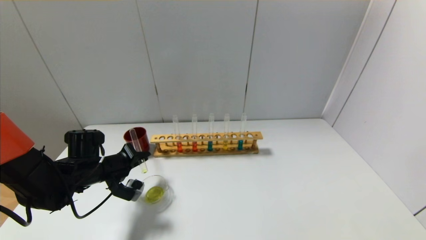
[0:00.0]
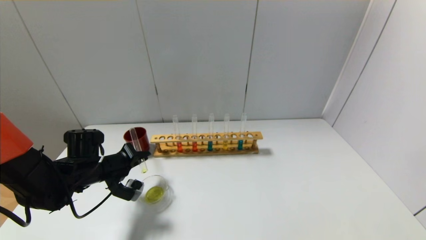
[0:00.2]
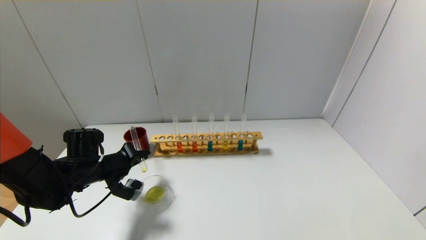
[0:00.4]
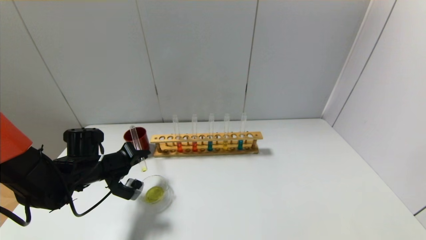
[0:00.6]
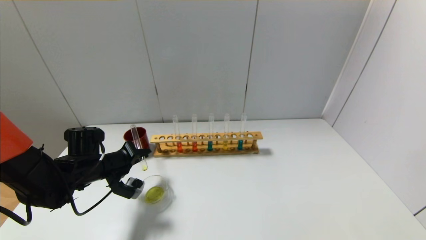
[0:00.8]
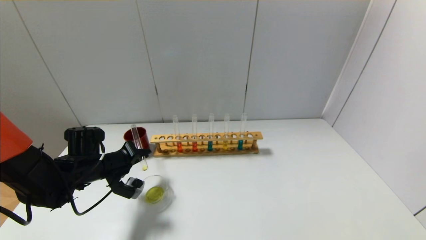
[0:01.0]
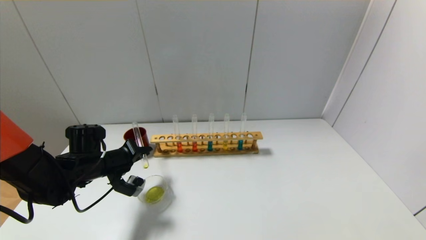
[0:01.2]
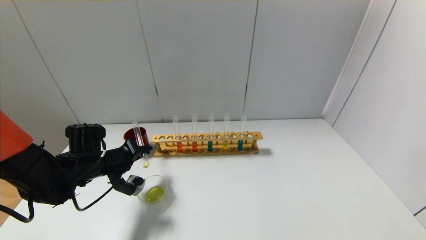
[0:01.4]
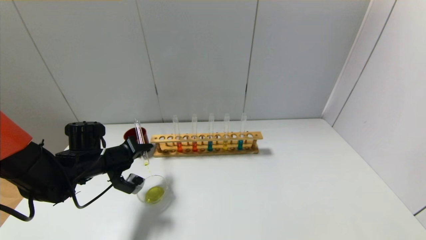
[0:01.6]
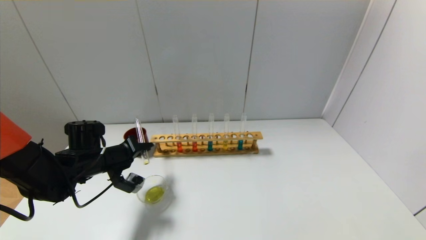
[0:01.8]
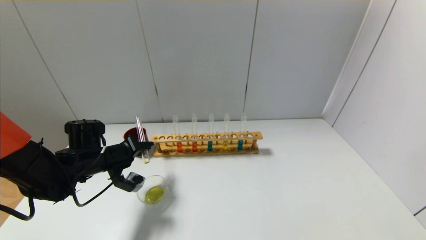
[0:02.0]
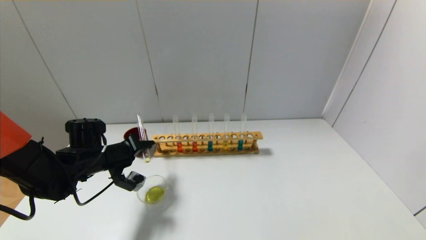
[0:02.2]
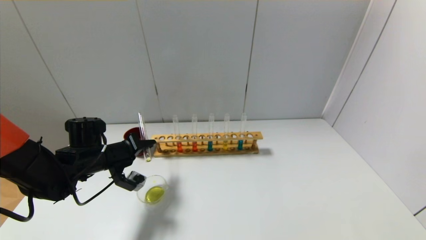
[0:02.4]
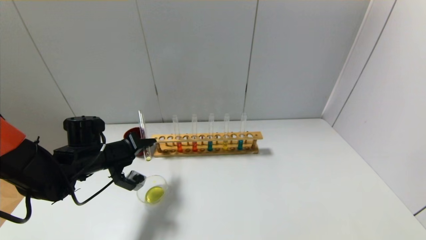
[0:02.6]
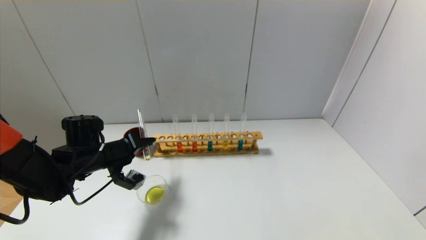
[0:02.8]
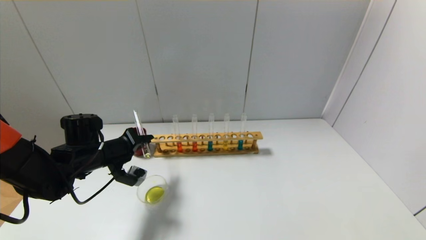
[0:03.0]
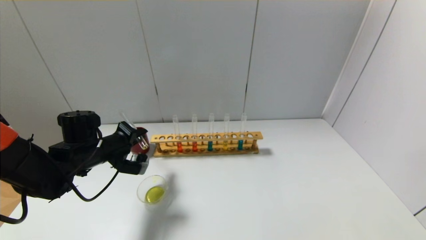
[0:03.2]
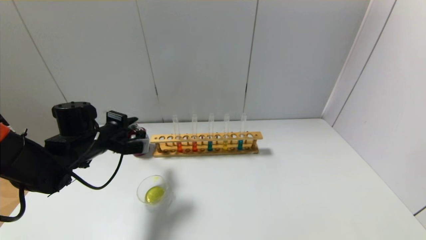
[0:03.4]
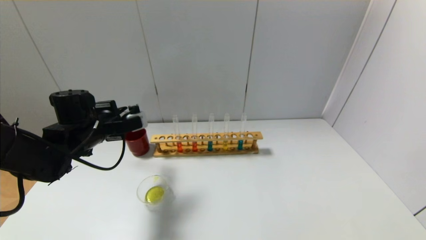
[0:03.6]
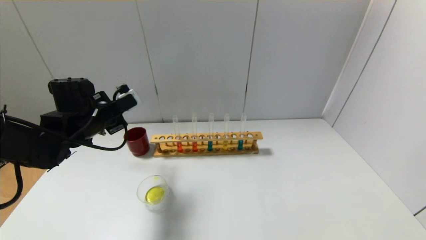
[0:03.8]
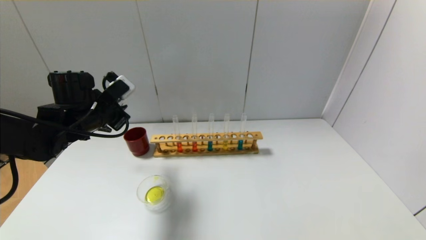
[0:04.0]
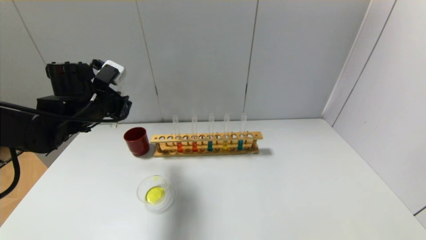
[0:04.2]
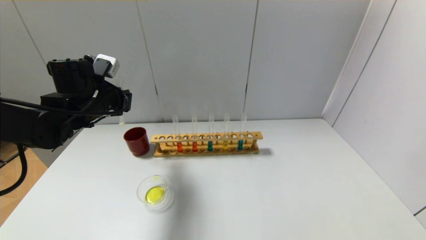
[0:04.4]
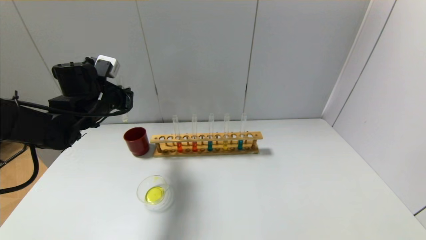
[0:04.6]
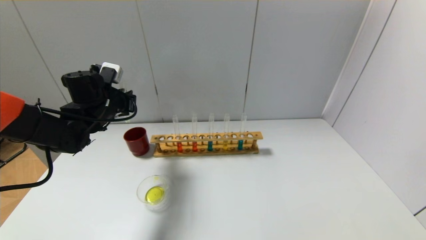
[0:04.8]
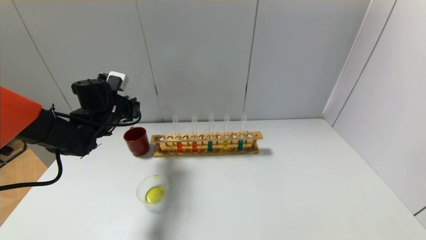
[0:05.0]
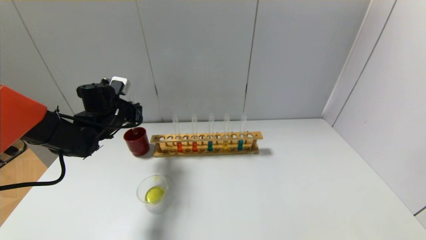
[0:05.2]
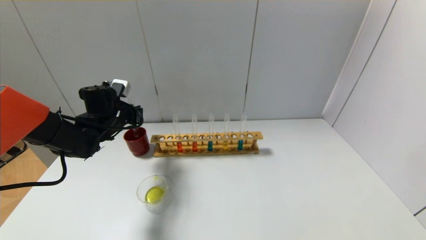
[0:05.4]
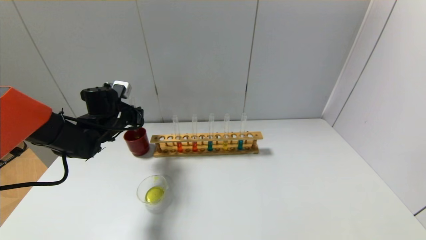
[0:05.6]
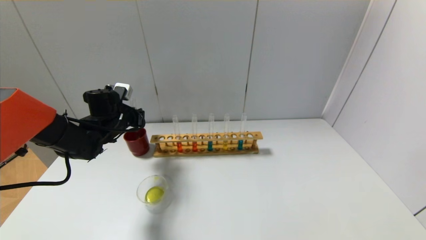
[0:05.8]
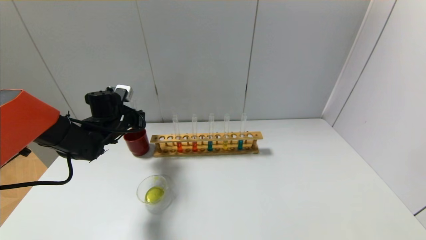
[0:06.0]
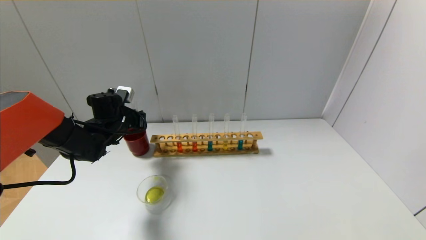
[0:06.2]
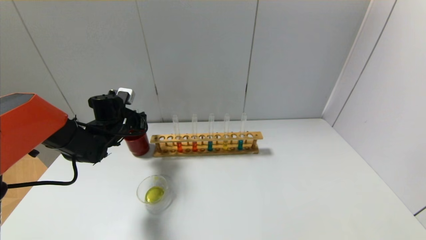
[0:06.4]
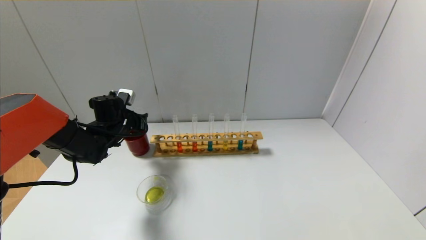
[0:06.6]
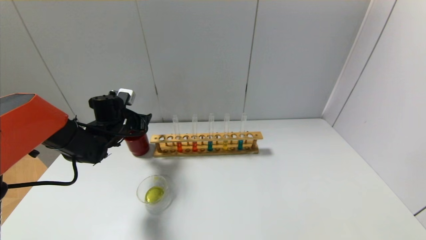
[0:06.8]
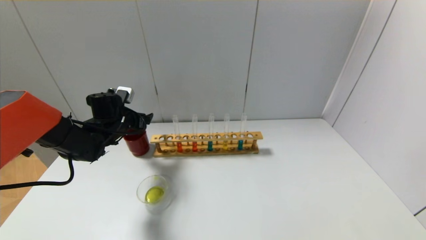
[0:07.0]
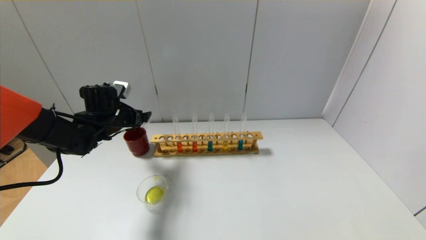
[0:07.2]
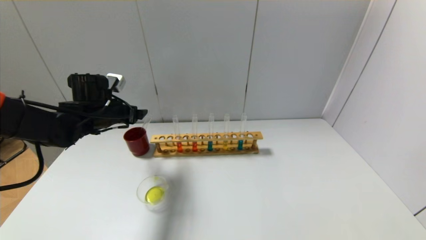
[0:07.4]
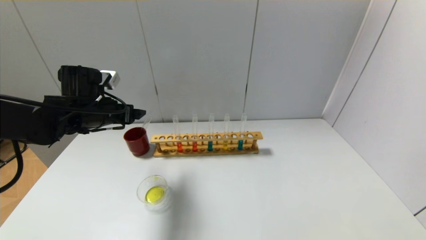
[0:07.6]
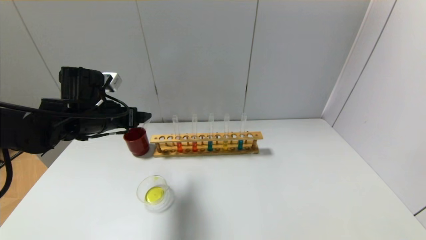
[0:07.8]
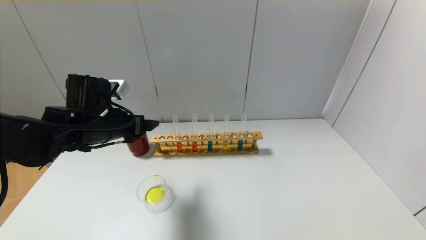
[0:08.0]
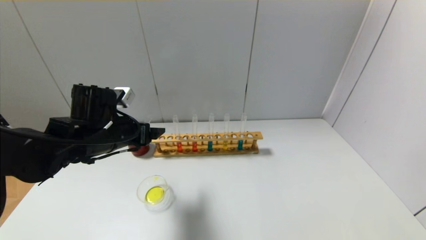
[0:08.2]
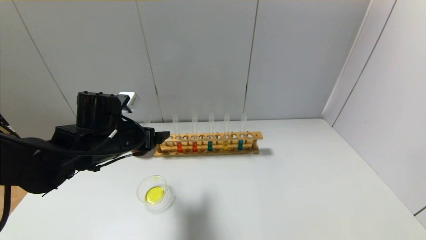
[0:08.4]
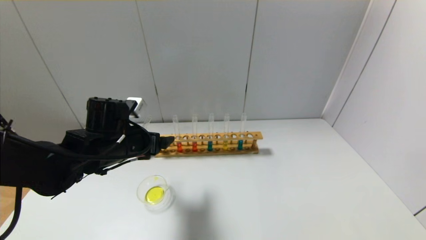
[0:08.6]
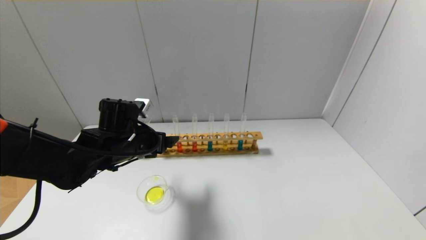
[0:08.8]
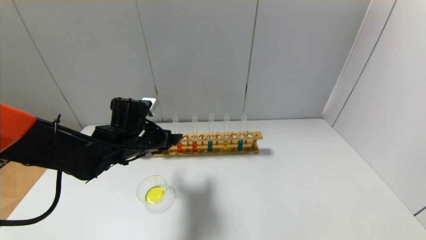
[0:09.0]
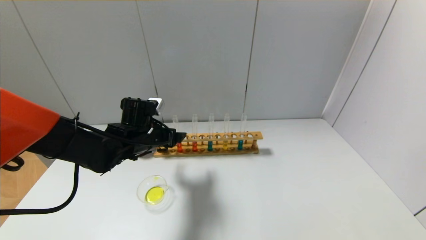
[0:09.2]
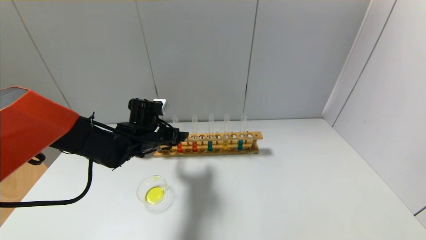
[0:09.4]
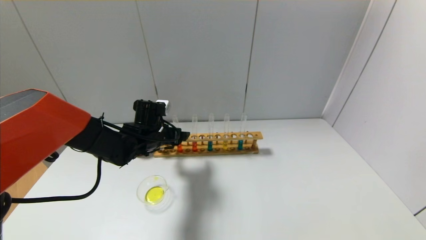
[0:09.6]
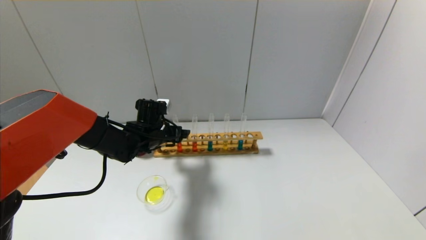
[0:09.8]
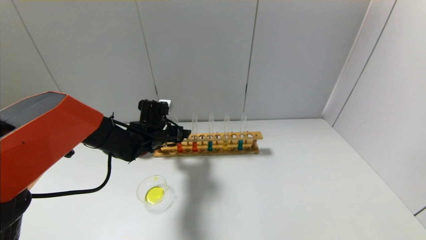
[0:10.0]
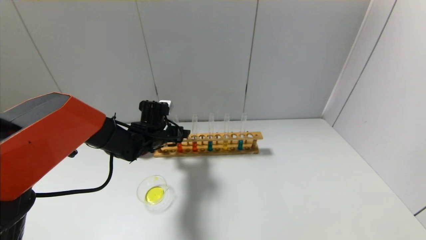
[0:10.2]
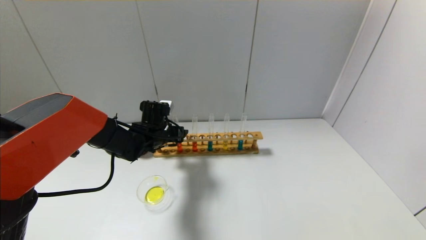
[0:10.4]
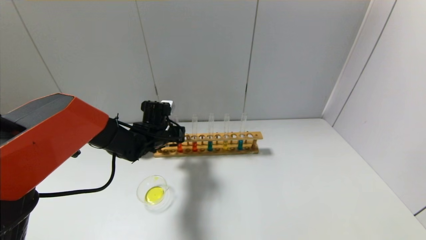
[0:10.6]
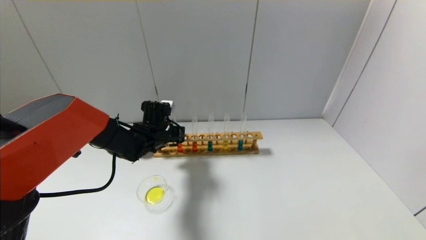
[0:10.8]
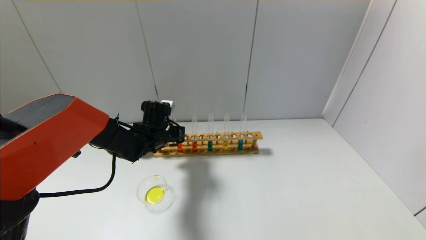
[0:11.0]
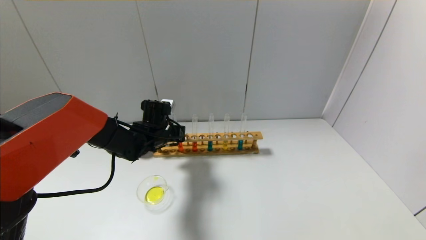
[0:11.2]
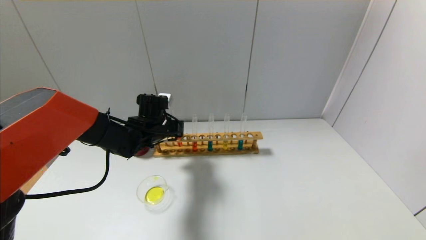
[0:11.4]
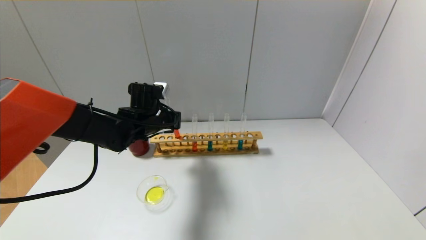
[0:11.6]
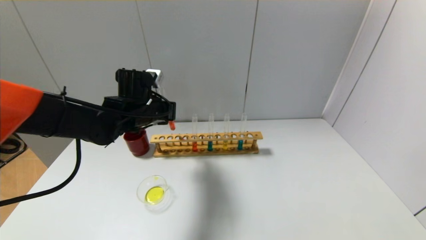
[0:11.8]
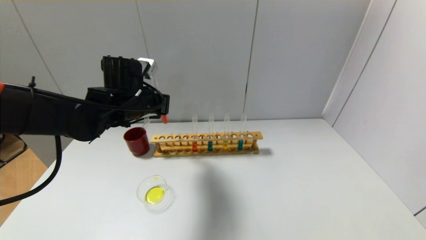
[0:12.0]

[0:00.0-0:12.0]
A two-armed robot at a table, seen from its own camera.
Step, 0:00.0 to 0:03.2: Pour the yellow reagent into the graduated cylinder with the left gripper.
Step, 0:03.4 to 0:06.6: Place the test tube into the brown cup with the left gripper.
Step, 0:06.8 to 0:10.8: Grasp the red reagent with the left gripper.
0:00.0 to 0:03.0: There are only small adjustments of the grippers.
0:03.0 to 0:04.4: The left gripper goes about 10 cm upward.
0:04.4 to 0:06.0: The left gripper travels downward and forward by approximately 10 cm.
0:06.0 to 0:07.6: The left gripper shifts some 10 cm upward and backward, and opens.
0:07.6 to 0:09.0: The left gripper travels to the right and downward by some 10 cm.
0:09.0 to 0:10.4: The left gripper goes approximately 10 cm forward.
0:10.4 to 0:12.0: The left gripper shifts about 15 cm upward and backward, and closes up.

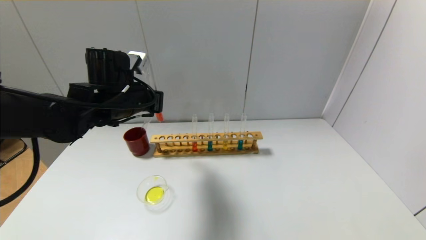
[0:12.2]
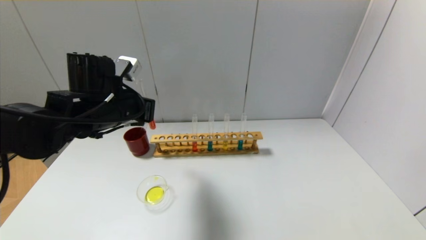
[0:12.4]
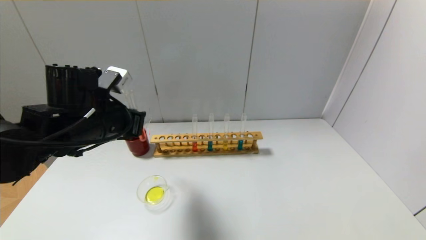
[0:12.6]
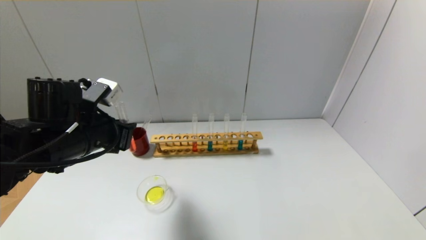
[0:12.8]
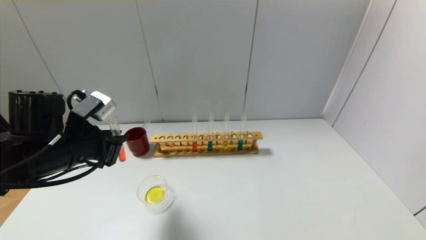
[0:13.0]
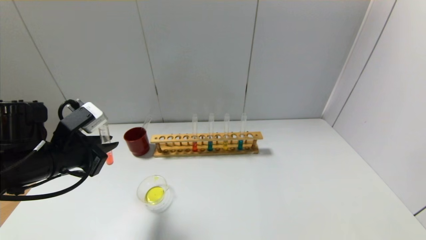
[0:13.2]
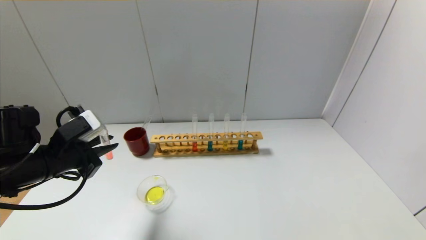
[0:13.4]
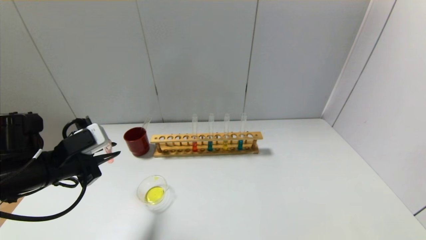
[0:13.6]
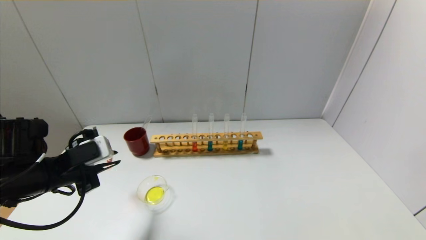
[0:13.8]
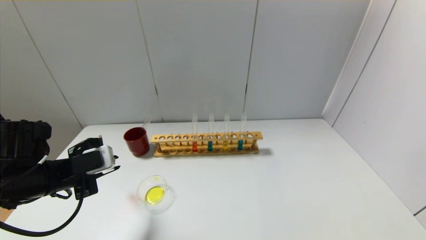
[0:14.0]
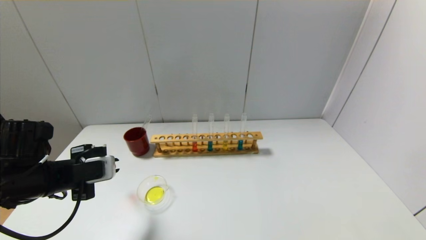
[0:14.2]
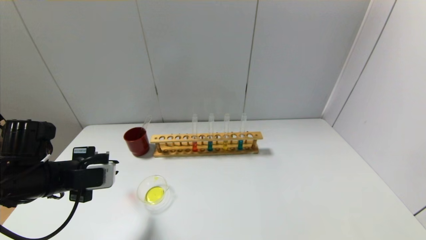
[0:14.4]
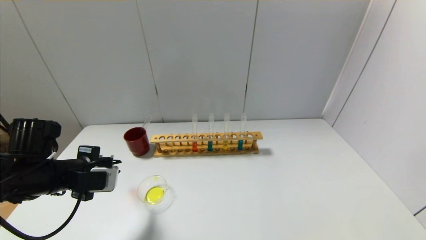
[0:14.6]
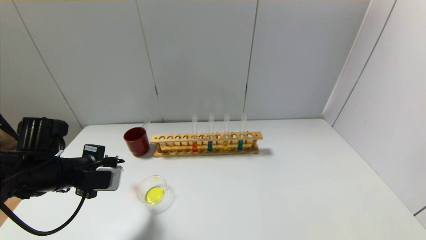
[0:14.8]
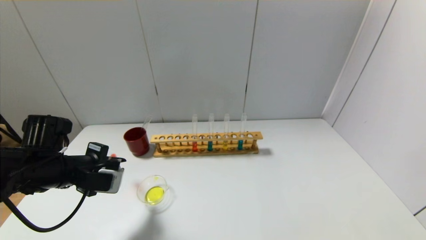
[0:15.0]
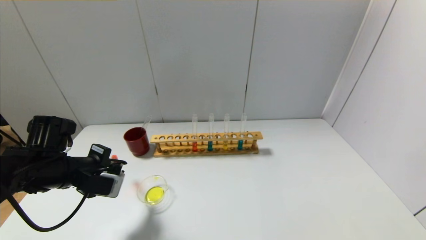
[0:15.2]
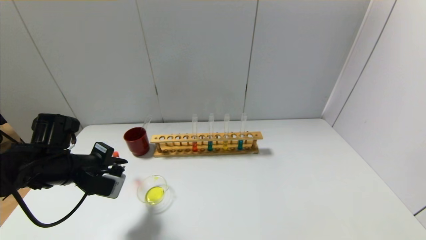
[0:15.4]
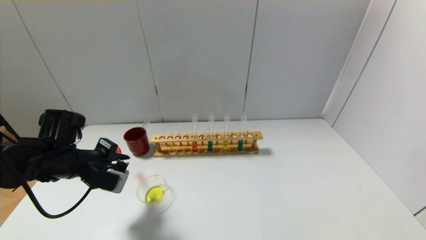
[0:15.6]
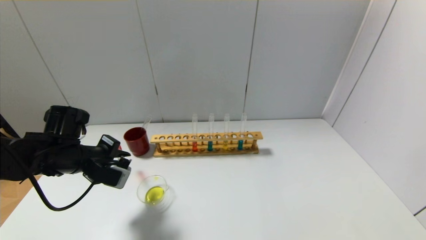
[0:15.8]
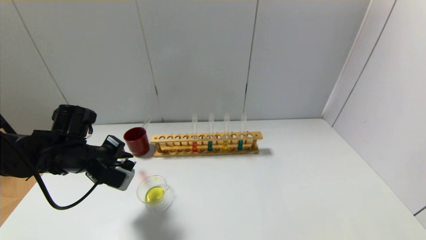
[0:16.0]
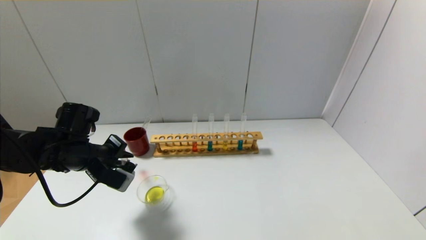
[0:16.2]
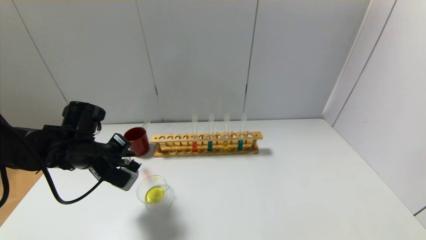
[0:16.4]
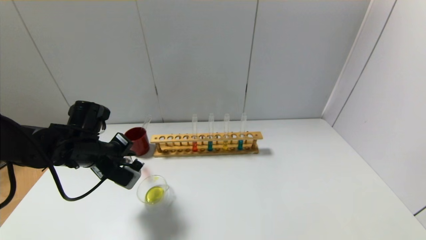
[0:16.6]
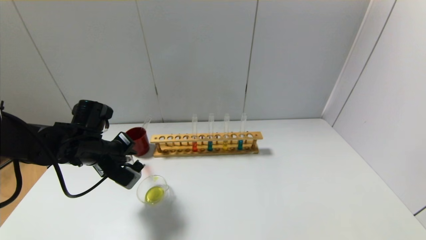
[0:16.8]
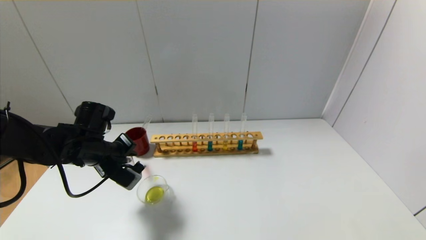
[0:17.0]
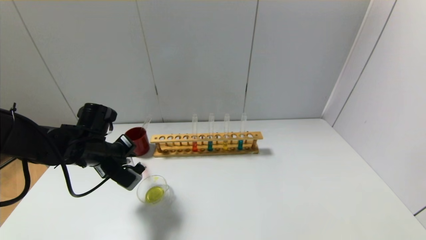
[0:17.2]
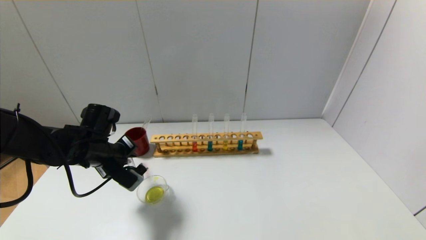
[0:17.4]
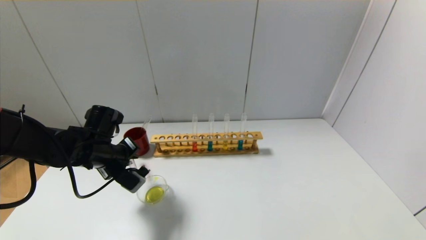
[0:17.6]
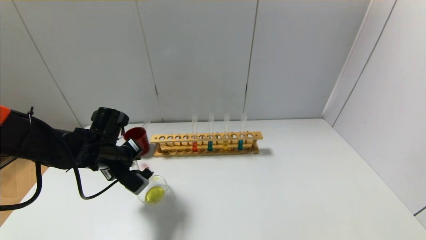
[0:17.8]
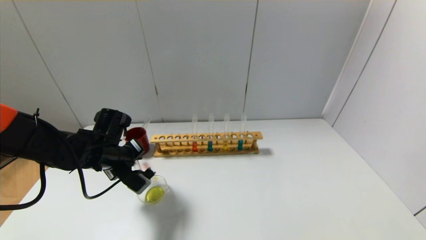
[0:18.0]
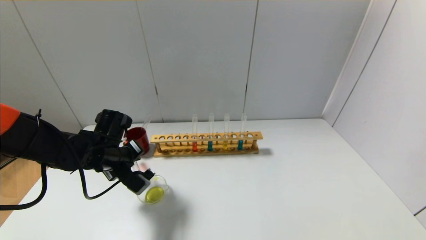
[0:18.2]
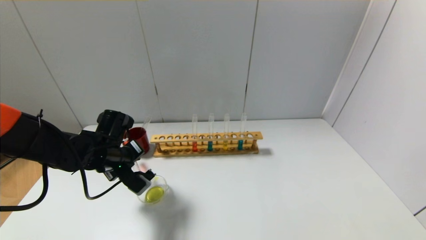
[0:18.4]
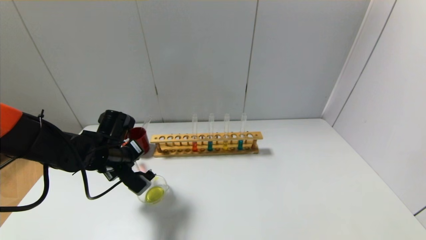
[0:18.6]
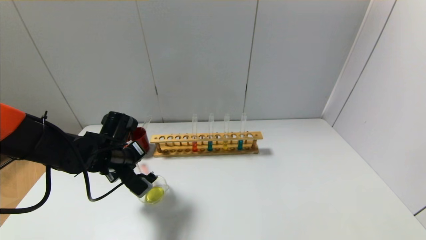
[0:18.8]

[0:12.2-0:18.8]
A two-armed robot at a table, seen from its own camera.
0:12.2 to 0:13.8: The left gripper shifts about 15 cm to the left, backward and downward.
0:15.4 to 0:17.2: The left gripper goes about 5 cm forward.
0:17.2 to 0:18.8: The grippers stay close to where they were, moving slightly.
